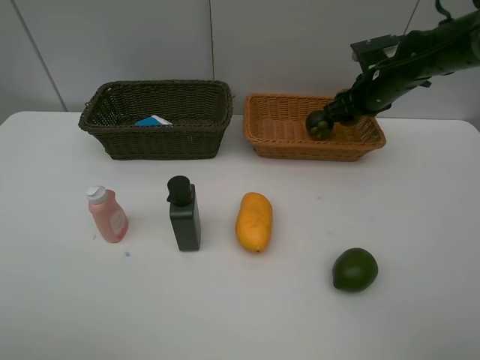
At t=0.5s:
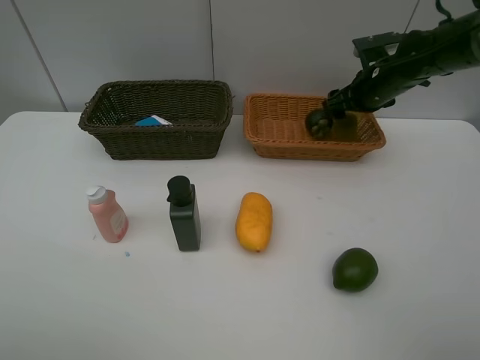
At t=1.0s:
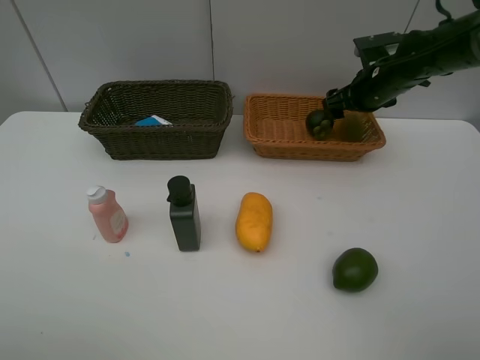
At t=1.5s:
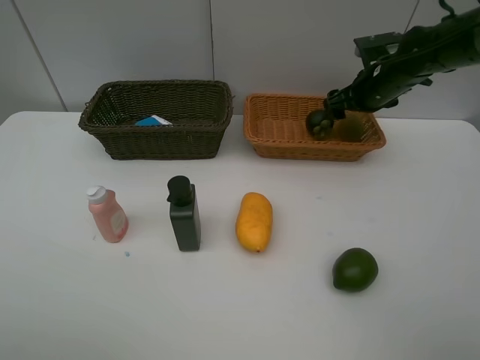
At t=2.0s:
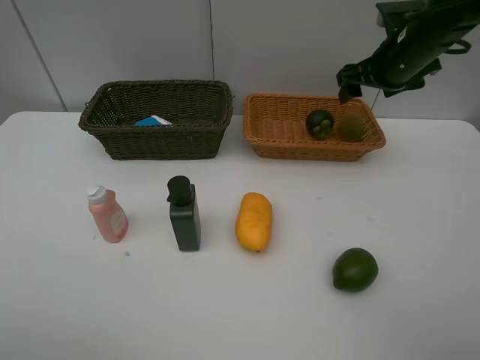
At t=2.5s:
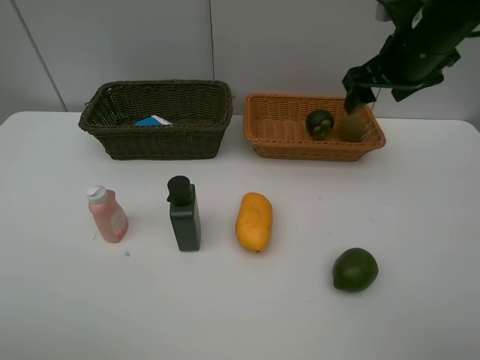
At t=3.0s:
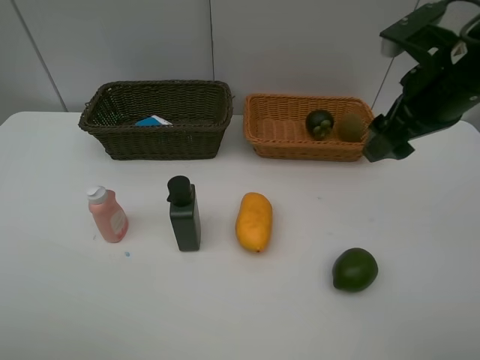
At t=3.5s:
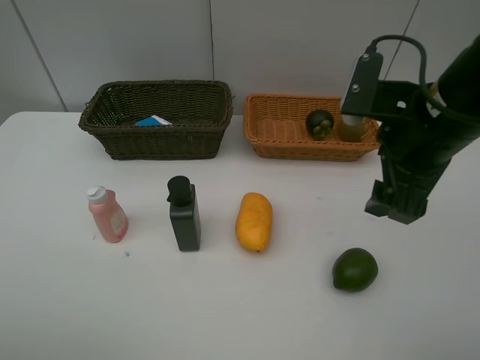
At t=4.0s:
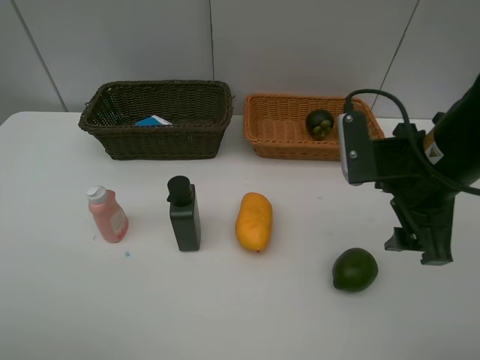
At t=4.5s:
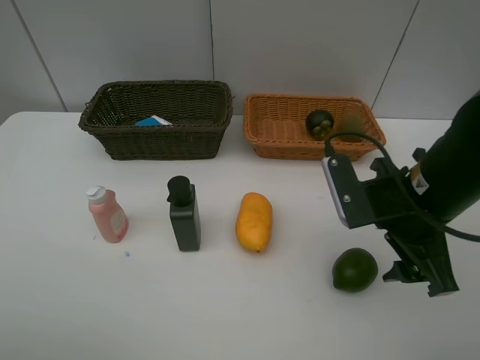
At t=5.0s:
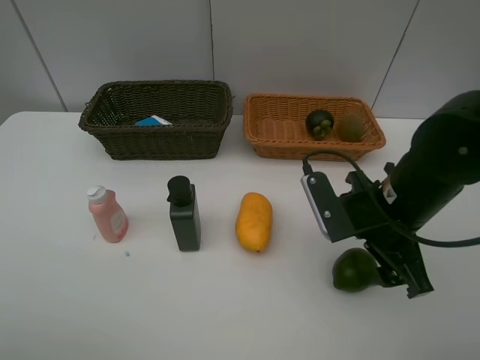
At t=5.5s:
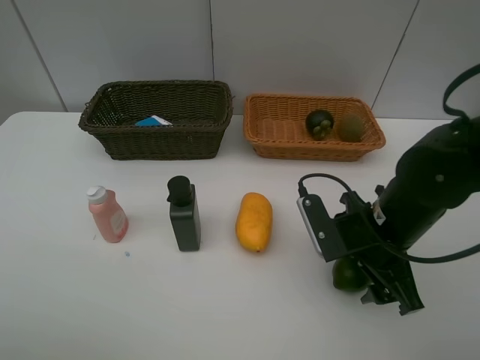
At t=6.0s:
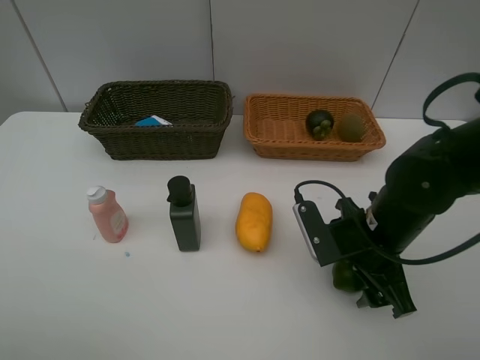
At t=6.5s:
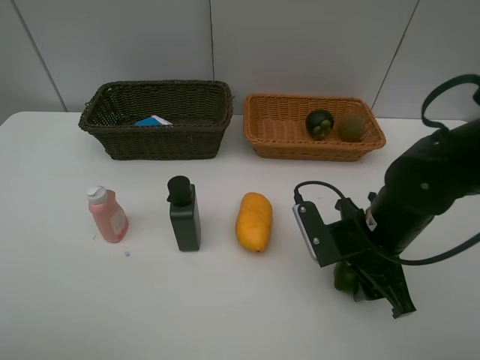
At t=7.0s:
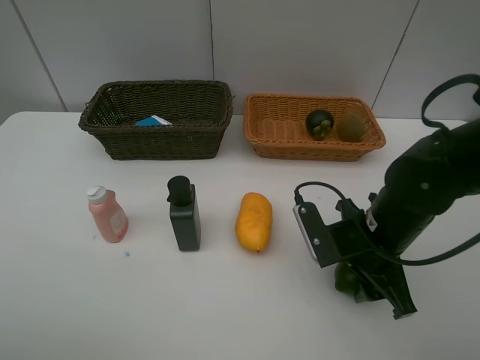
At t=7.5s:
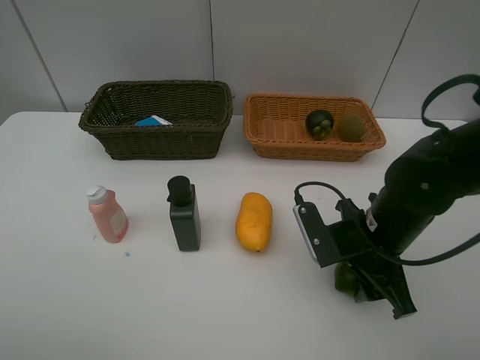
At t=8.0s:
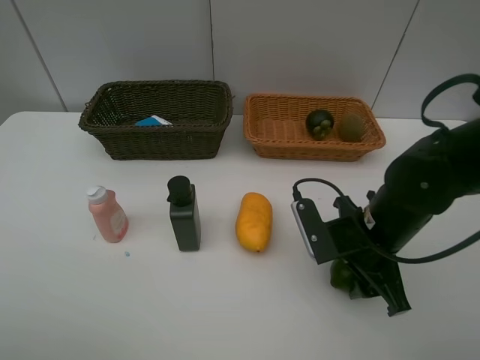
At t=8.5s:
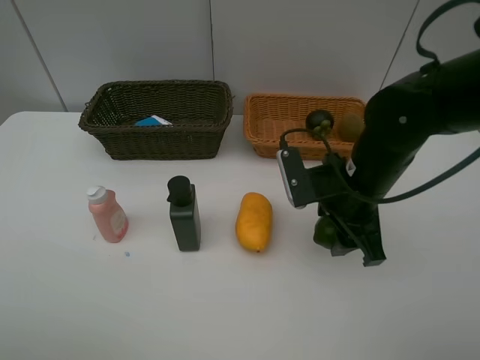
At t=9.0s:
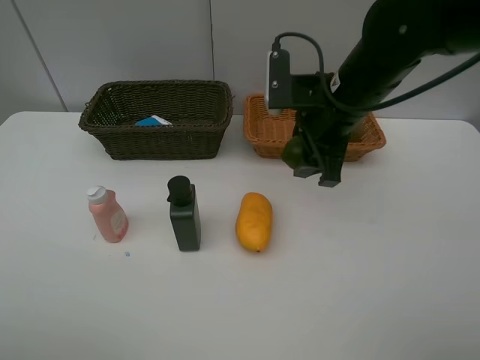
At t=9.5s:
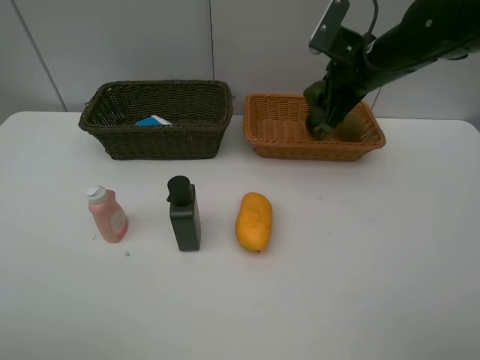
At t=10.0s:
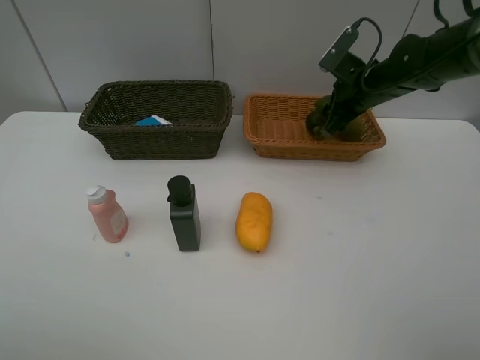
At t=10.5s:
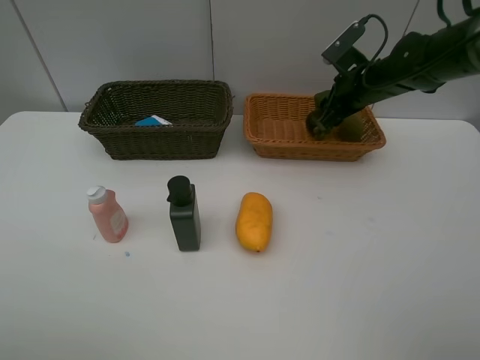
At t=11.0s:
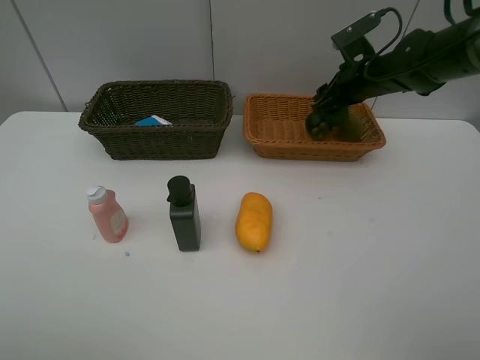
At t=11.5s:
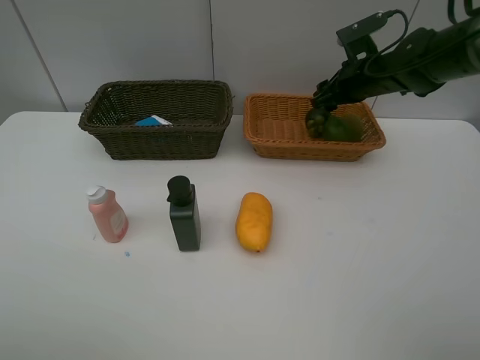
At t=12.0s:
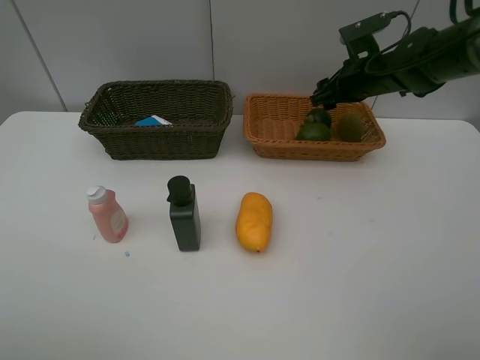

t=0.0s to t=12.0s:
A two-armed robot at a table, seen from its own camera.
Task of the whole recording: Place multiple objects separately in different baskets.
Step, t=1.5s to t=8.0s: Pick up the lime with right gripper.
Step, t=8.5s to t=11.5s: Place the lime in the light basket with right gripper.
t=0.0s to t=2.0s: The right gripper is displaced upward by roughly 5 cm, and opens its fingers.
t=2.0s to t=4.0s: The right gripper moves backward, approximately 20 cm.
t=4.0s to t=6.0s: The right gripper shifts some 10 cm downward.
t=6.0s to t=8.0s: Neither gripper changes place.
t=8.0s to t=10.0s: The right gripper goes roughly 20 cm forward.

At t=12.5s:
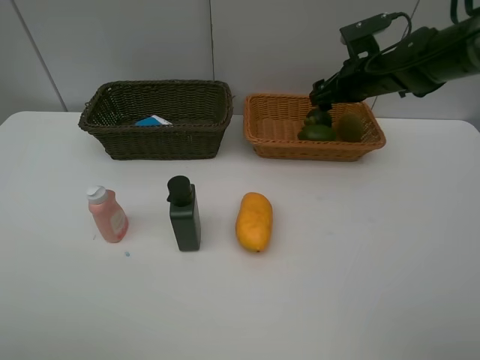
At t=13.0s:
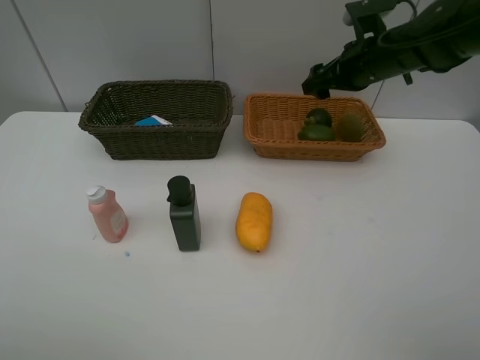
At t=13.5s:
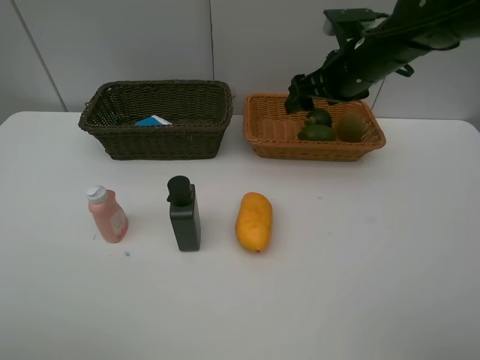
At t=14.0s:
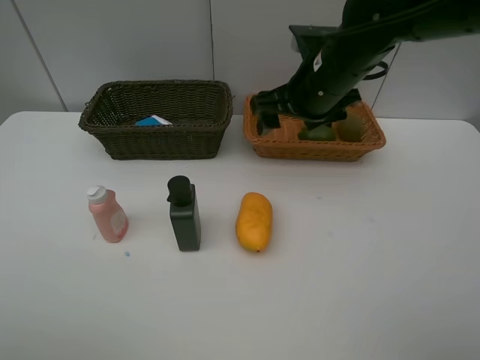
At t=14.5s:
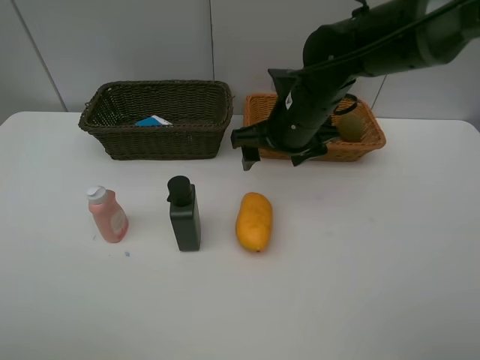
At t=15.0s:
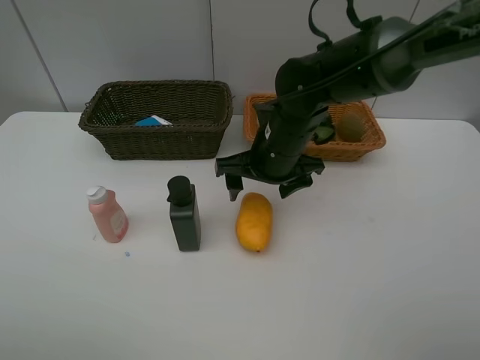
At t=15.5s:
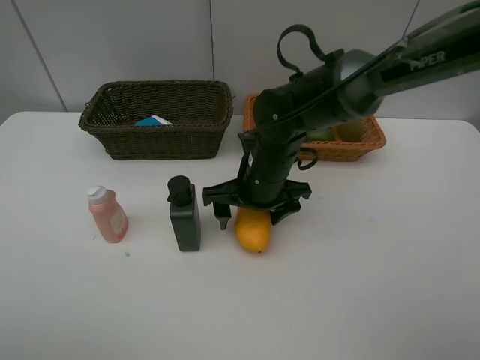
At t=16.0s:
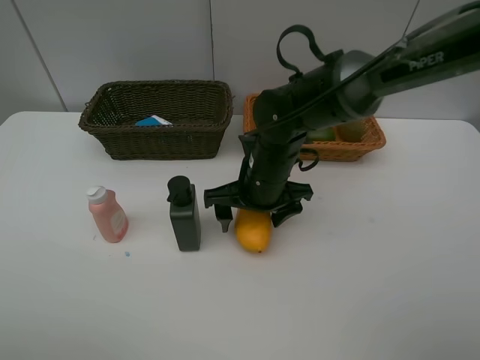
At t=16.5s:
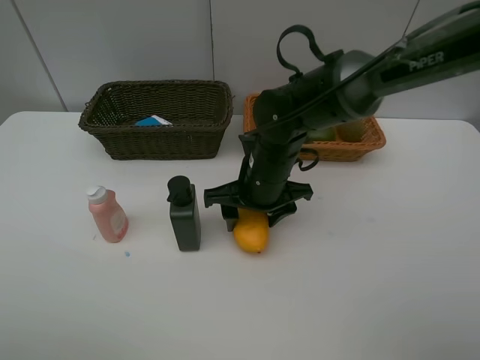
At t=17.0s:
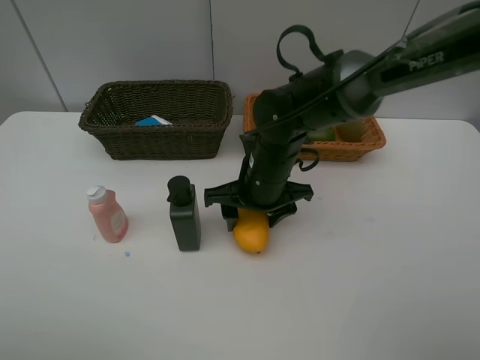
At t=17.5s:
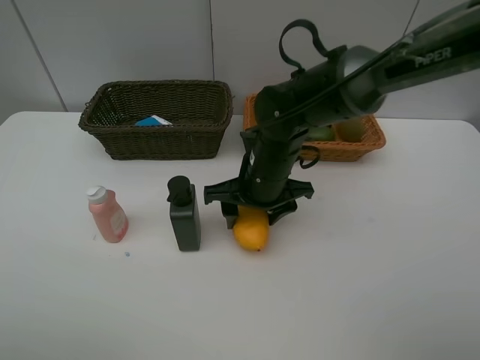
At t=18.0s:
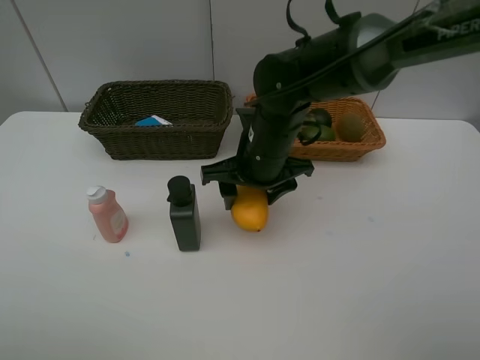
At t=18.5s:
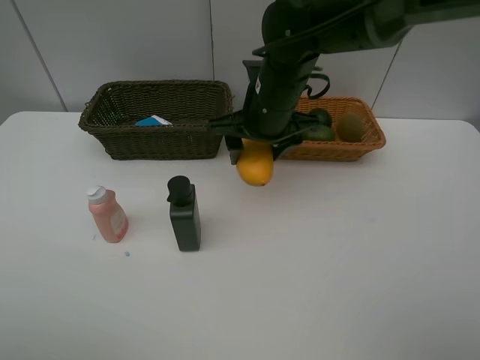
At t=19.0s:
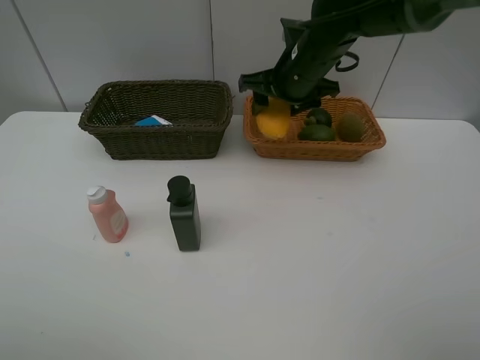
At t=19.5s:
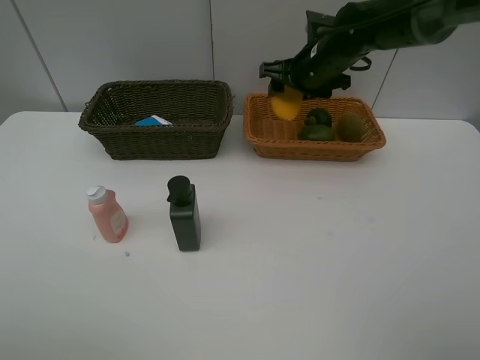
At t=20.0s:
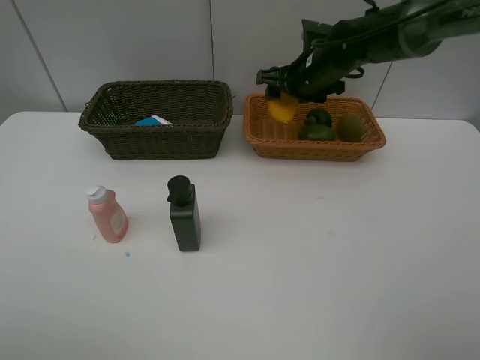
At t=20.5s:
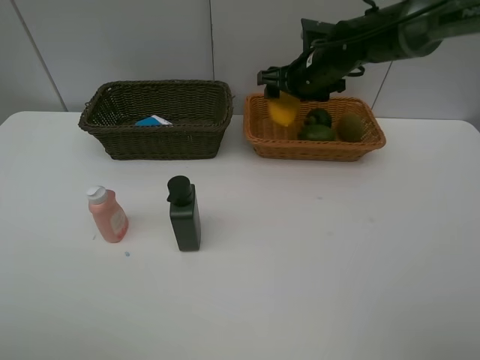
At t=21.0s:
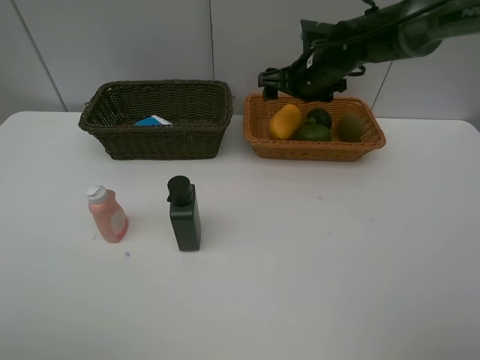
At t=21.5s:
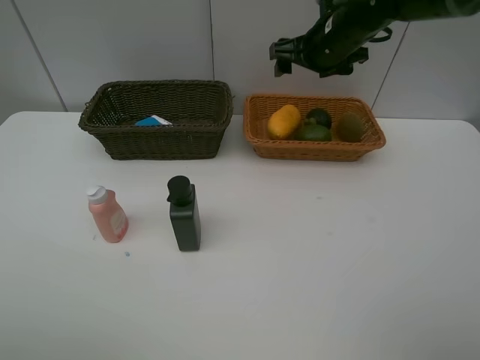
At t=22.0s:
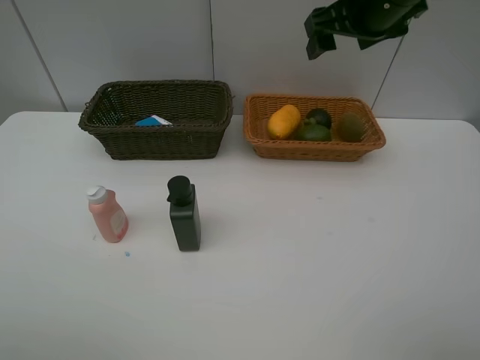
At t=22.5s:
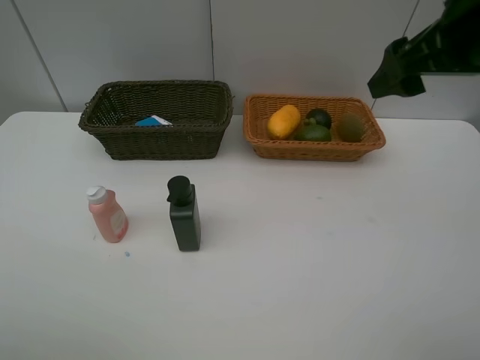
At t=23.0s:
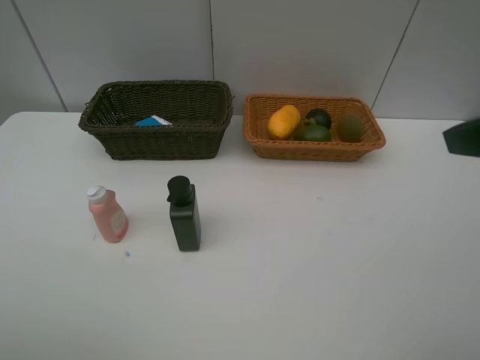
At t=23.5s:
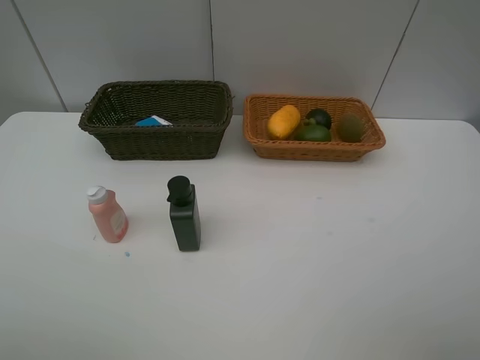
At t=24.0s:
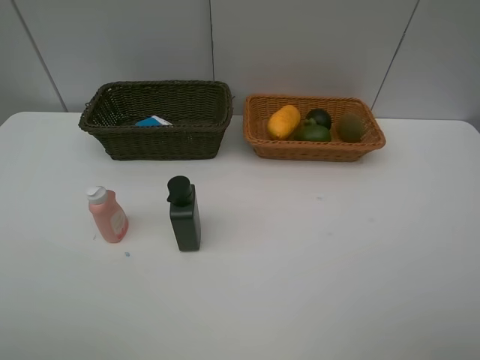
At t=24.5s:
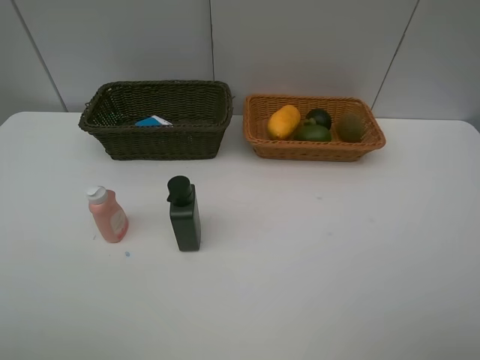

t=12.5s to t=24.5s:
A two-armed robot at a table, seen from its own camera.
Task of the whole recording: Place multiple objects separately in different baskets.
Step, t=12.5s to t=18.0s: Pick up the mango with right gripper.
Step, t=18.5s to t=20.5s: Place the mango in the light basket with right gripper.
t=12.5s to t=14.5s: The right gripper heads to the left and backward, covering roughly 15 cm.
t=14.5s to t=16.5s: The right gripper goes some 5 cm downward.
t=16.5s to t=18.5s: The right gripper moves upward and forward, some 10 cm.
t=18.5s to t=20.5s: The right gripper travels forward and to the right by roughly 15 cm.
t=20.5s to t=22.5s: The right gripper shifts some 30 cm backward, upward and to the right.
t=22.5s to t=24.5s: The right gripper heads backward, covering roughly 25 cm.

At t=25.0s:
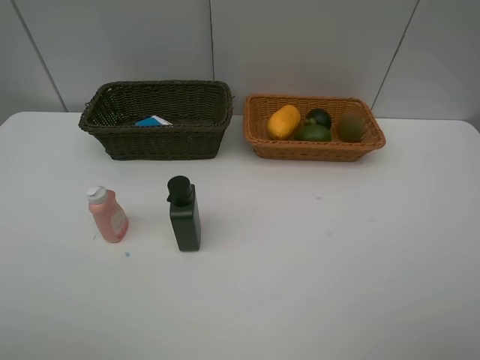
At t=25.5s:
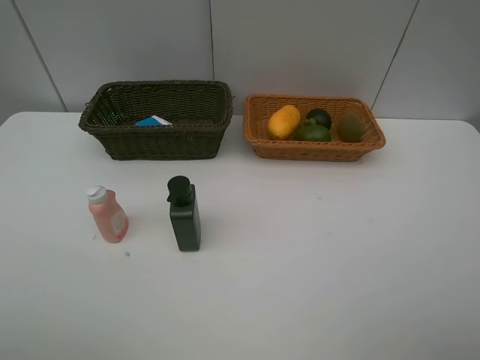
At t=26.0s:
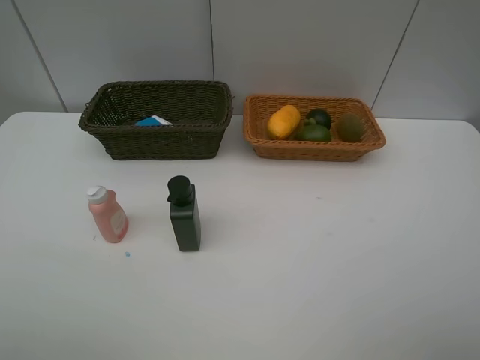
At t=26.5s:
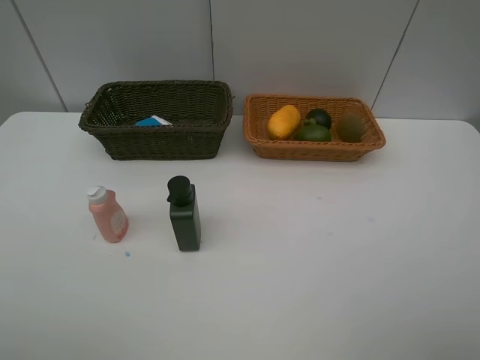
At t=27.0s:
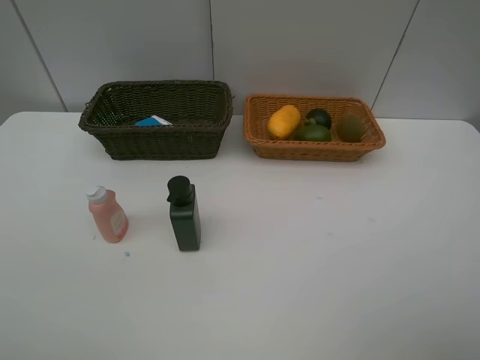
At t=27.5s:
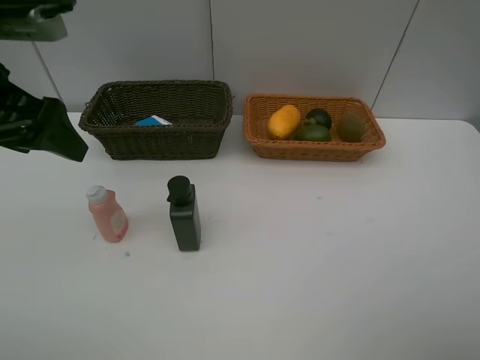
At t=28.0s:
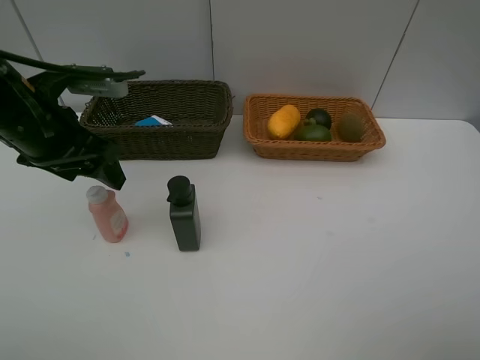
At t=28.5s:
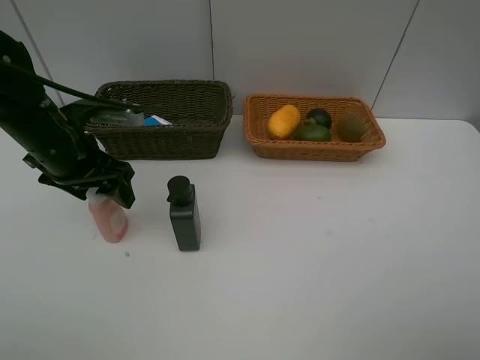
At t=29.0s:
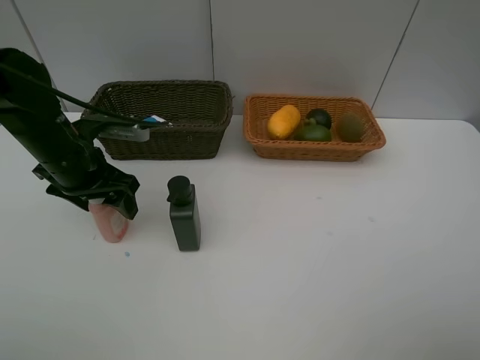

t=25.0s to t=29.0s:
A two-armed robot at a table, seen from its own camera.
Task of the whole recording: Place multiple objects separately in different baskets.
t=27.0s to t=29.0s: The left gripper travels downward and forward by about 25 cm.
